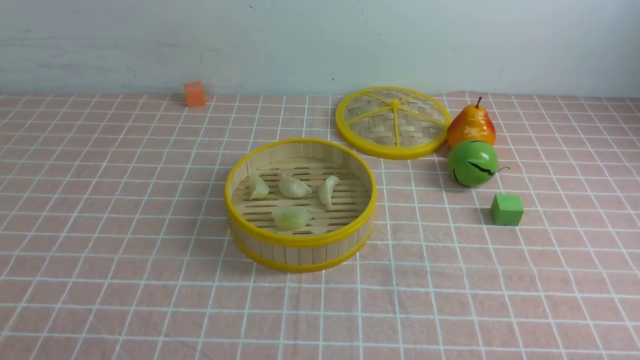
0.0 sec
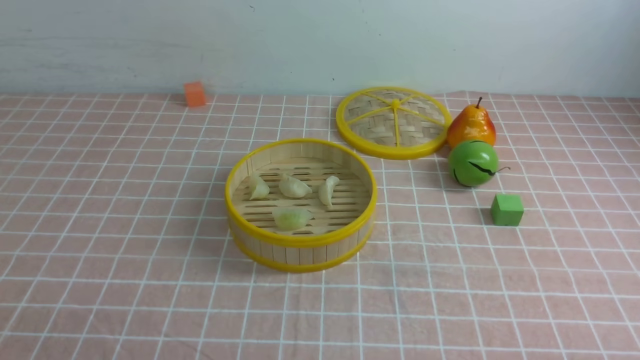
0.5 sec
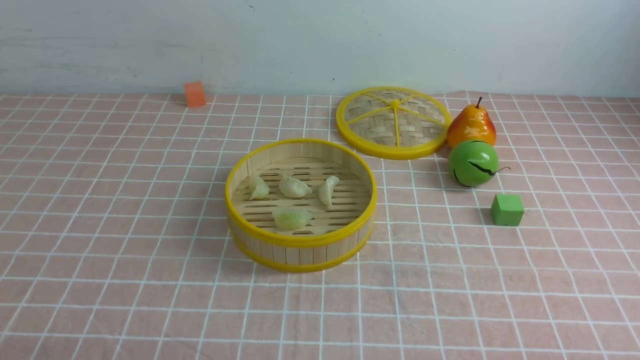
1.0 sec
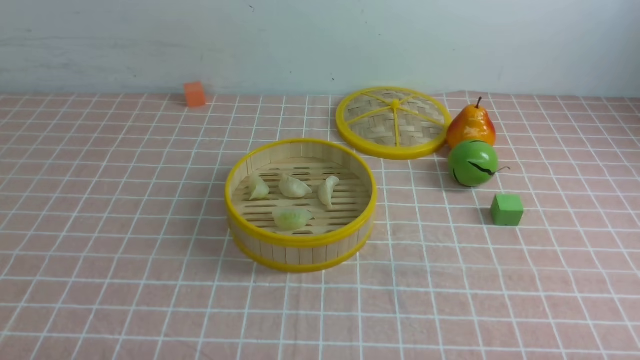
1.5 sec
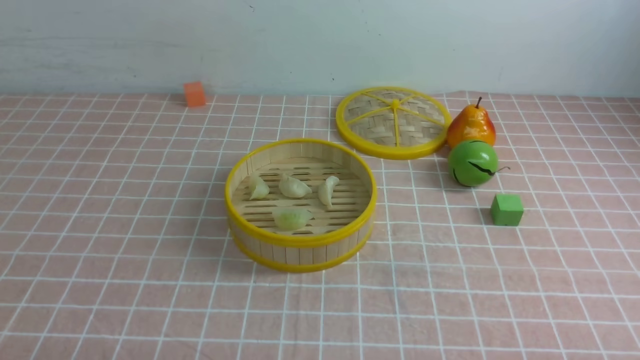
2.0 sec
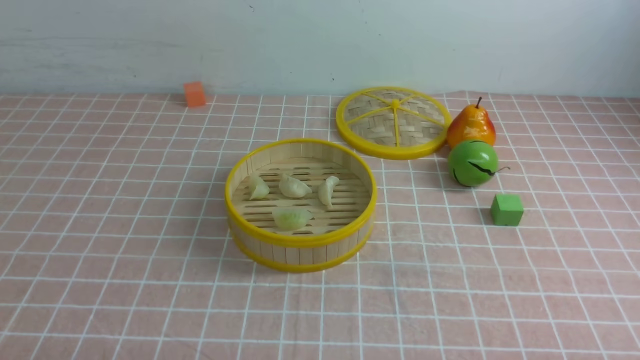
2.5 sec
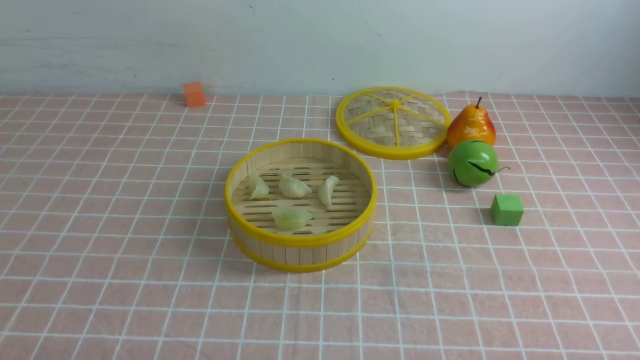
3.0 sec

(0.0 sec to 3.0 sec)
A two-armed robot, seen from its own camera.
Task of the whole recording: put the dumplings into the steamer on the table with the pink tablecloth.
1.5 sec - 3.0 sec: Neither gripper changes place.

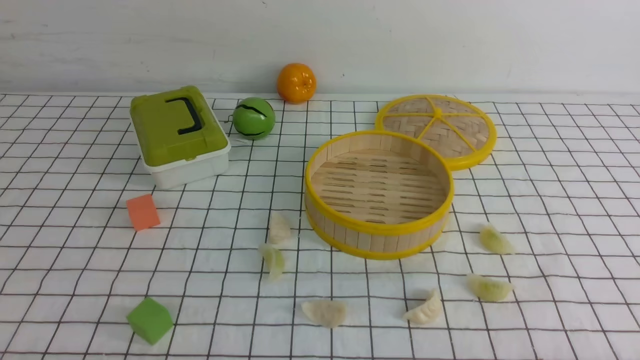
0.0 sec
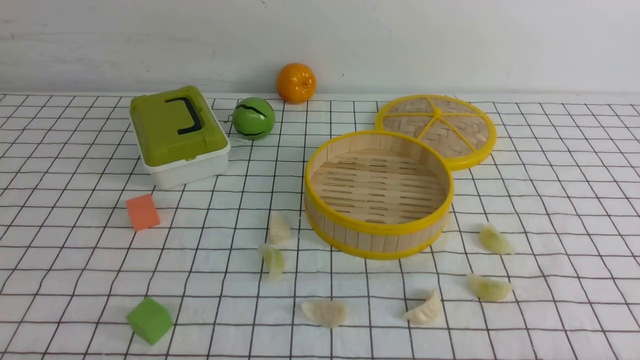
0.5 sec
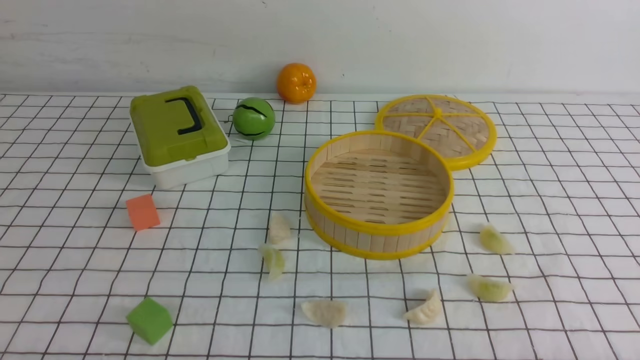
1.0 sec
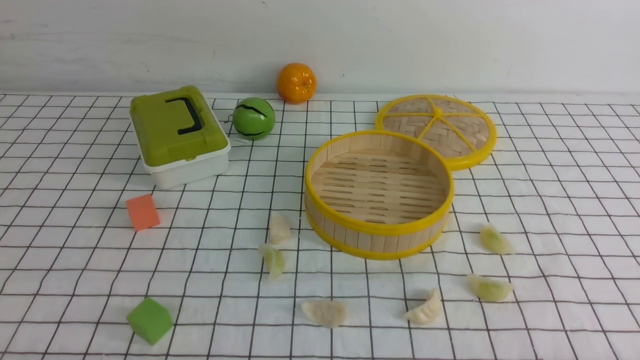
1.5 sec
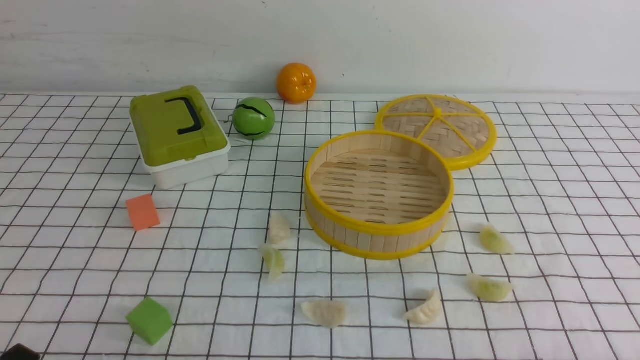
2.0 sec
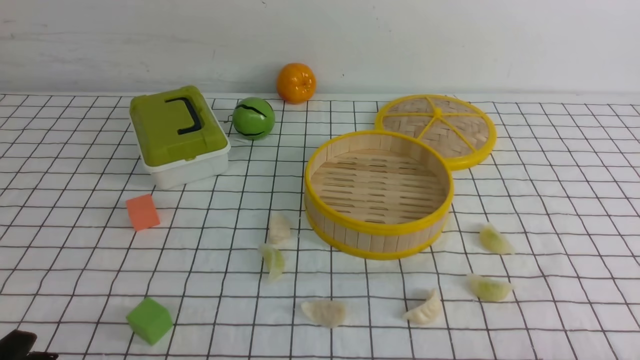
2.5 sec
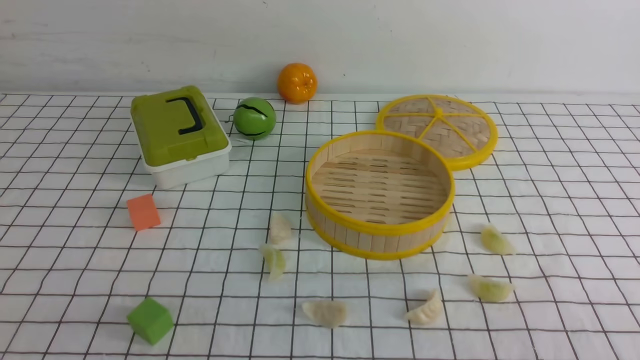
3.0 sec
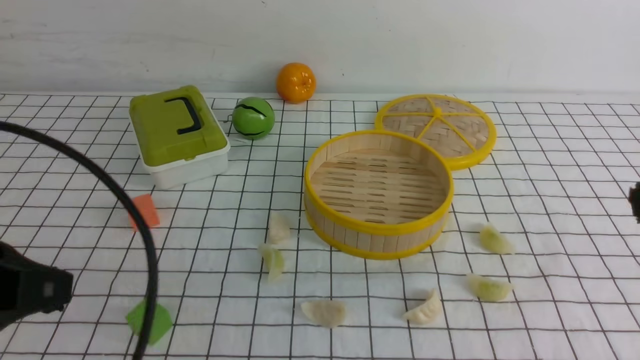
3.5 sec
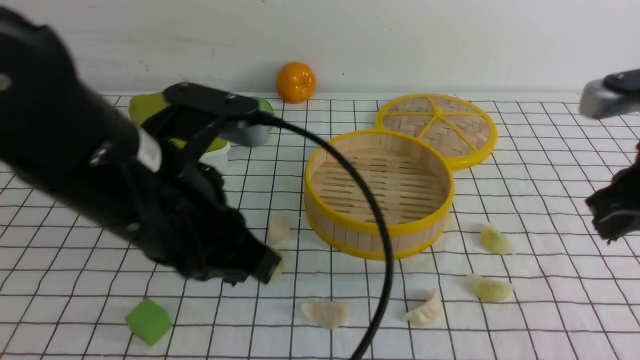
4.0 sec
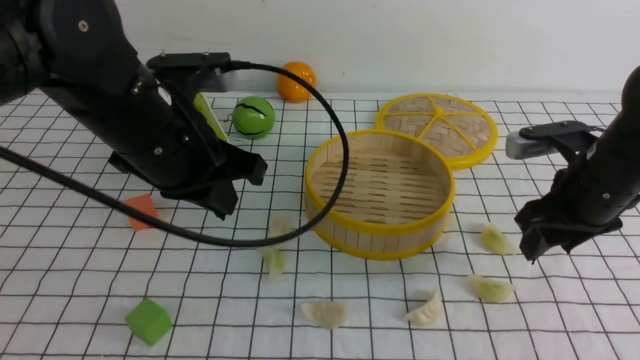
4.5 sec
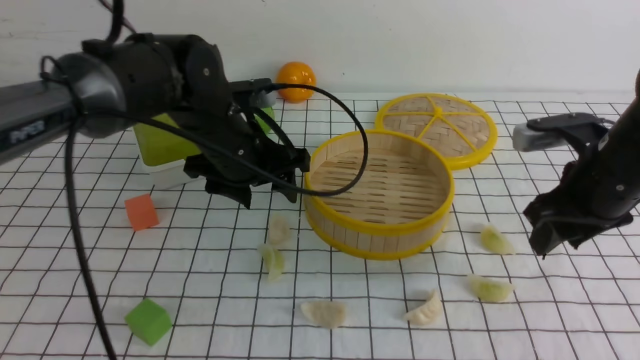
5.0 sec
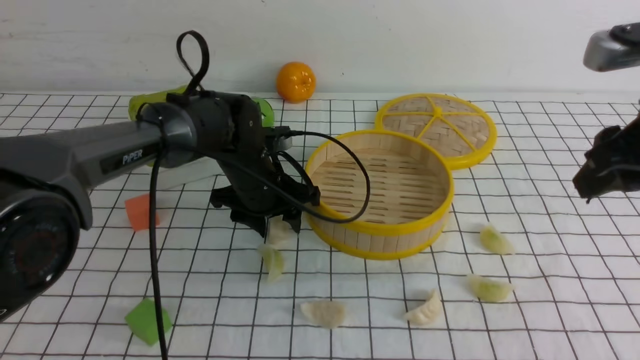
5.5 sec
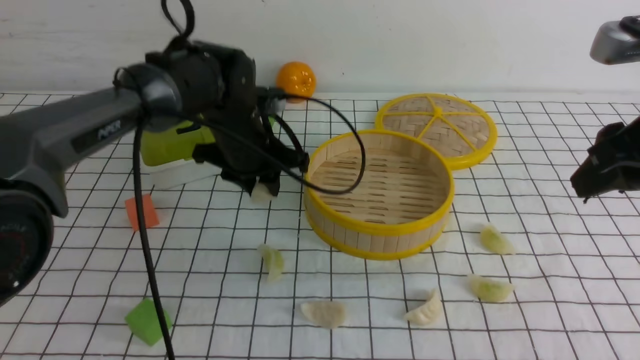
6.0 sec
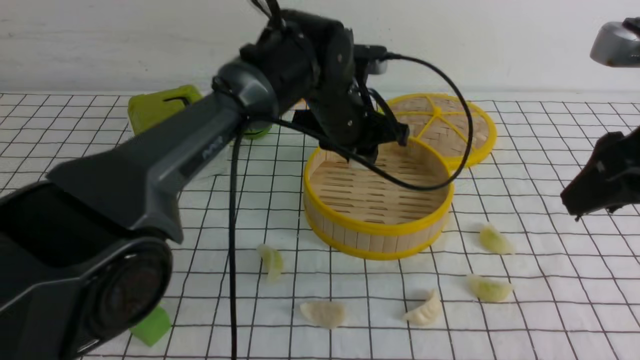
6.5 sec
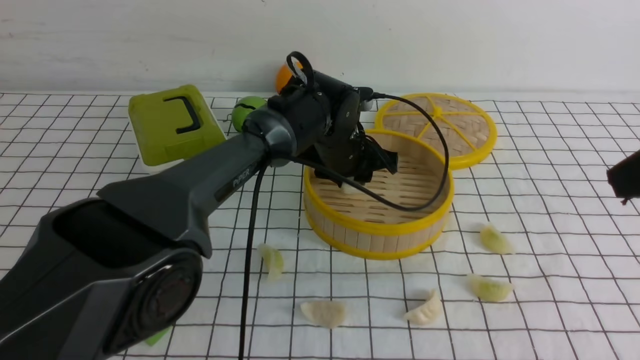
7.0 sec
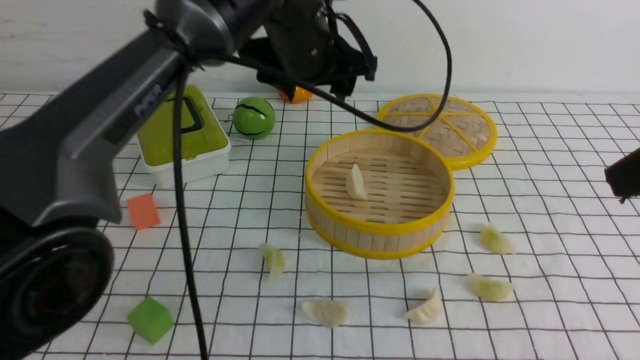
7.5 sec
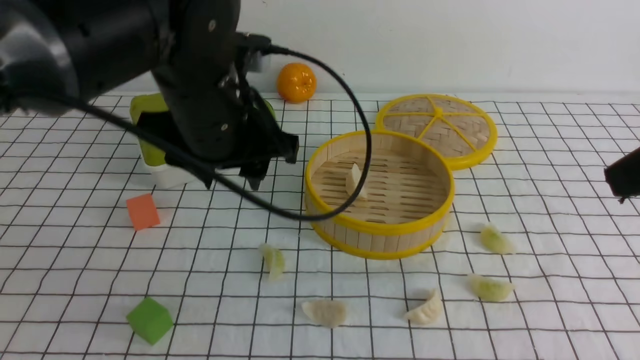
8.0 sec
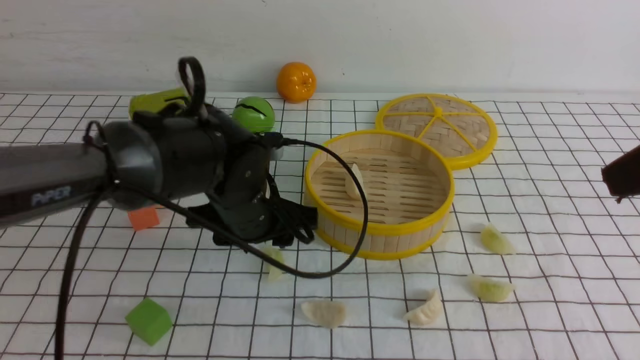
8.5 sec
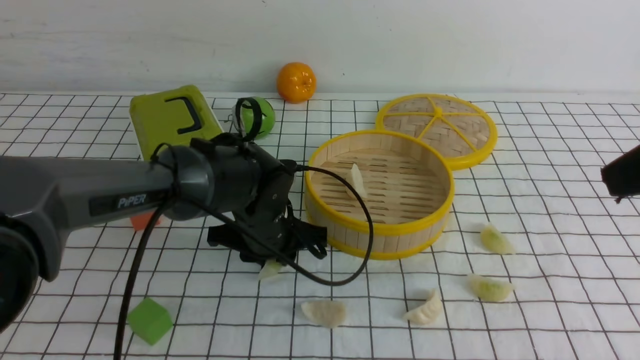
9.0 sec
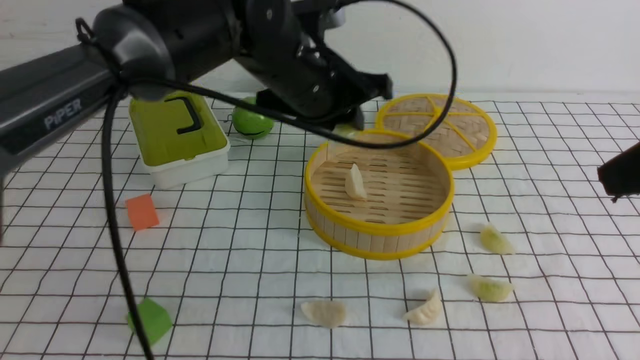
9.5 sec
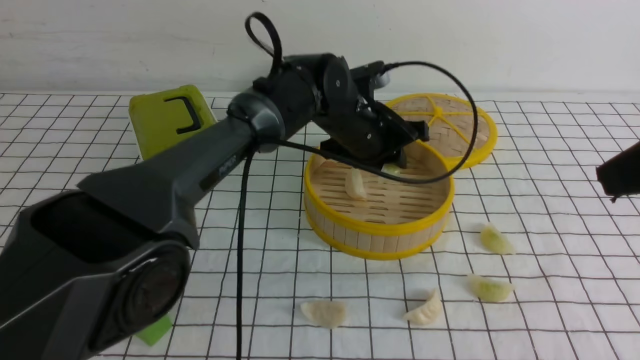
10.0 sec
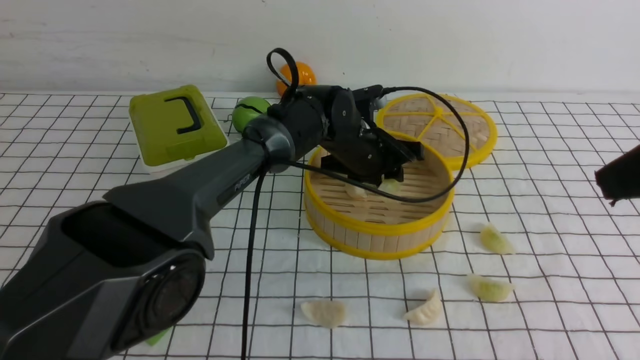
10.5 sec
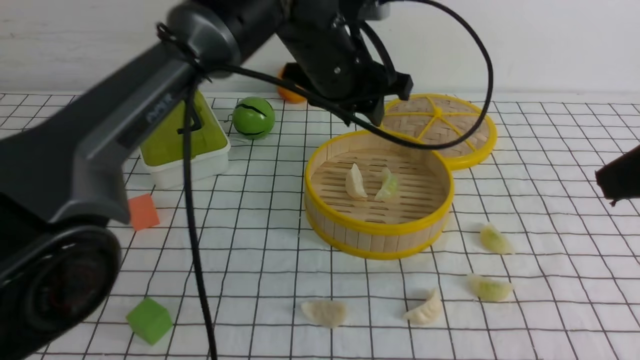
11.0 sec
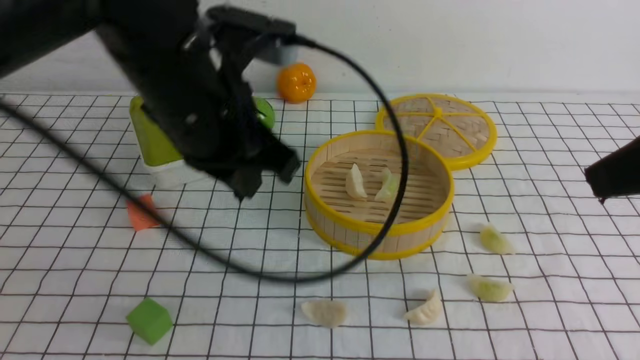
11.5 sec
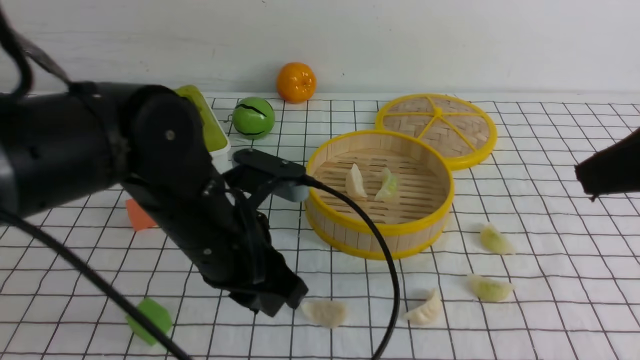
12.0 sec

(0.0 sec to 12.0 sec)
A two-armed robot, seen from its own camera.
Task of the whole recording: put the dumplings into the steamer on the table with the white tablecloth.
Step, 0.0 sec - 6.0 sec: use the left arm to grab a dumpling.
Step, 6.5 sec - 7.0 sec: use the left arm to put the dumpling into the steamer.
Step, 7.5 sec - 9.5 sec: use the left arm to grab a dumpling.
Step, 10.0 sec - 10.5 sec: use the left arm to put the dumpling into the steamer.
2.0 sec - 4.0 sec: The left gripper goes approximately 25 cm upward, forward and to the right, and closes up, while the right gripper goes approximately 25 cm forward and upward.
4.0 sec - 6.0 sec: The right gripper opens up; the left gripper goes some 25 cm forward and downward, and opens its fingers.
6.0 sec - 8.0 sec: The right gripper moves backward, some 5 cm, while the left gripper shifts roughly 15 cm backward and upward.
8.0 sec - 10.0 sec: The left gripper swings up and down, about 15 cm each way, with 2 reversals, and closes its fingers.
10.0 sec - 12.0 sec: The left gripper moves backward and to the left, about 25 cm, and closes, then reopens.

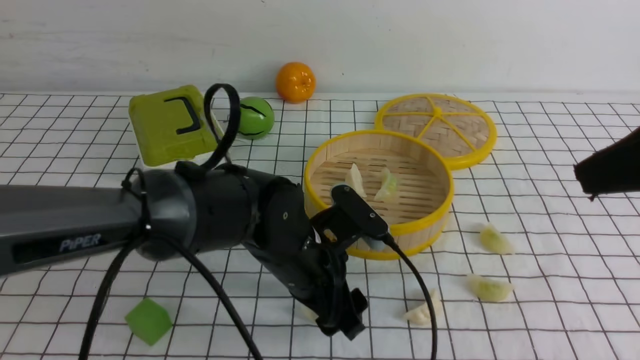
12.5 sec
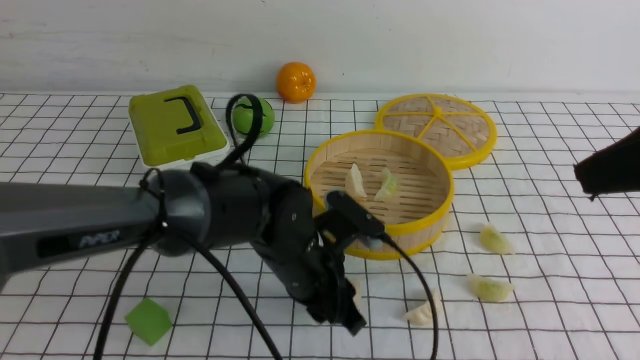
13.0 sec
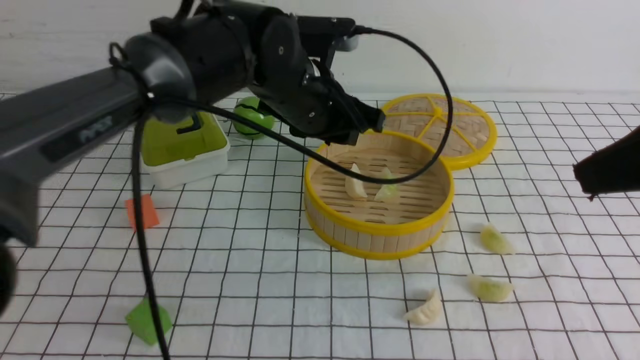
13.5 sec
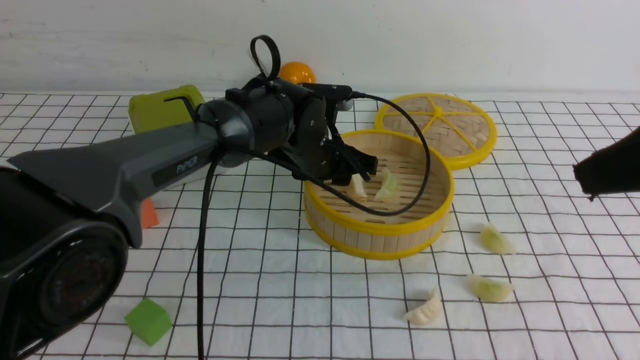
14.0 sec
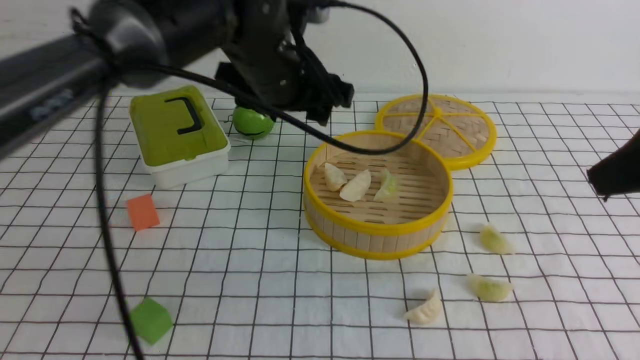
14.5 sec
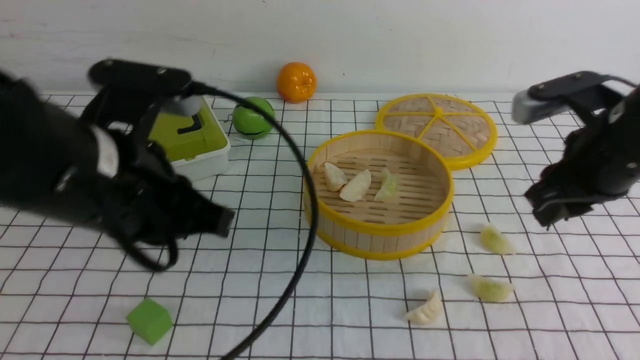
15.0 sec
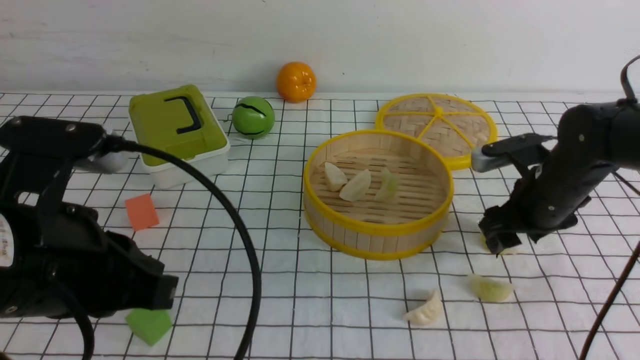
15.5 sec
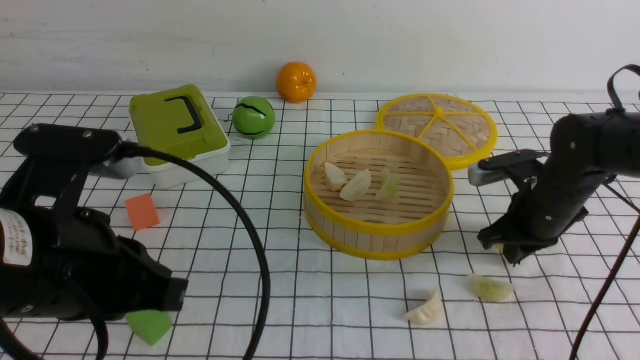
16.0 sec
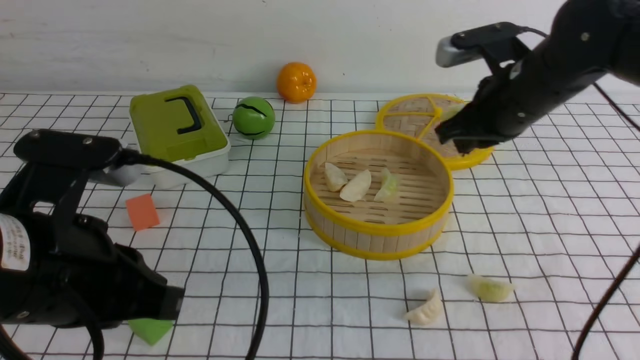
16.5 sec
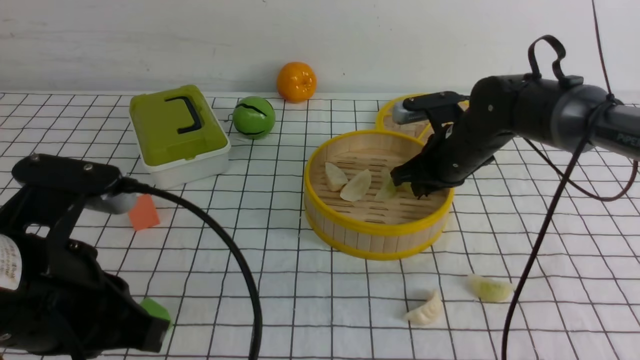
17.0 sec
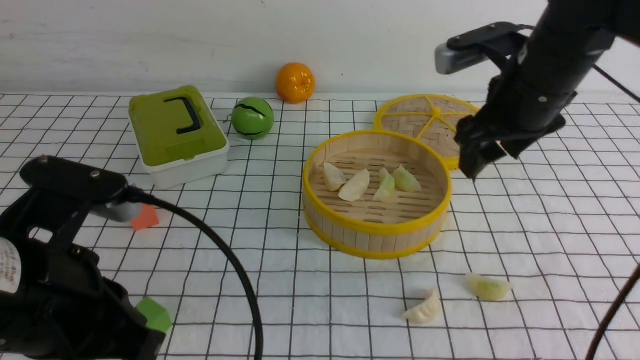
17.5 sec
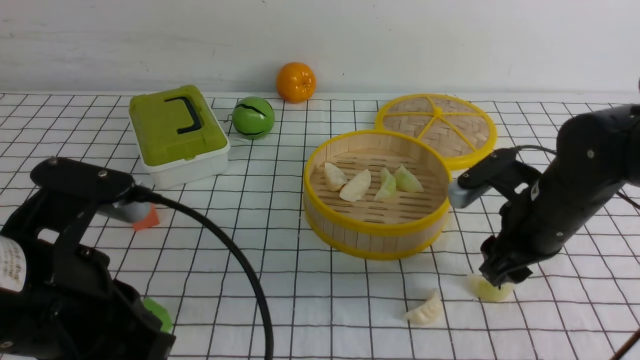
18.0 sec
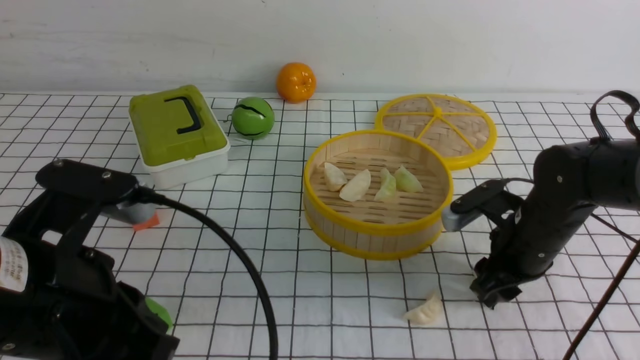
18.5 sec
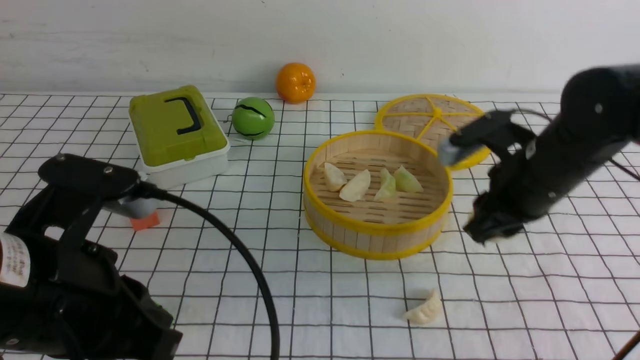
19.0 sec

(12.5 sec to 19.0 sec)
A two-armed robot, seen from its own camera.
Task of the whole recording: put the dumplings into the steamer on the table with the white tablecloth.
Step, 14.0 sec - 14.5 sec: use the left arm to put the dumpling into the steamer.
Step, 15.0 sec - 16.0 sec: use the right arm to grab a dumpling.
Step, 17.0 sec - 17.5 sec: use the right arm to put the dumpling into the steamer.
Step, 18.0 sec - 18.5 sec: use the right arm to grab a dumpling.
12.5 sec - 14.5 sec: The left gripper goes up and down, approximately 15 cm each way, reversing 2 times, and closes, then reopens.
14.5 sec - 17.0 sec: The right gripper moves forward, downward and to the left, roughly 30 cm, and closes, then reopens. Meanwhile the left gripper travels backward and to the left by some 25 cm, and closes.
17.0 sec - 19.0 sec: The right gripper goes up and down, some 15 cm each way, reversing 2 times, and opens, then closes once more.
